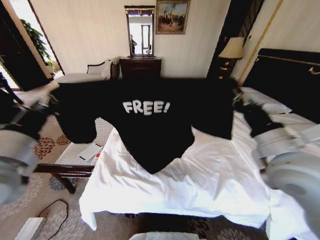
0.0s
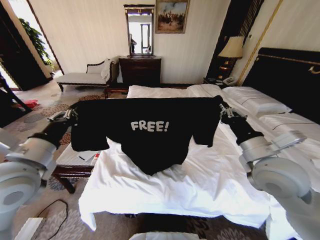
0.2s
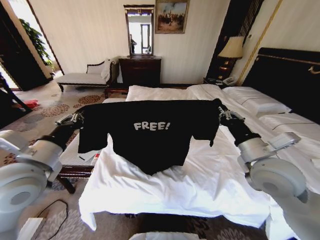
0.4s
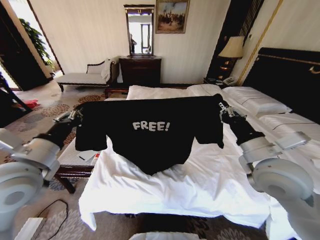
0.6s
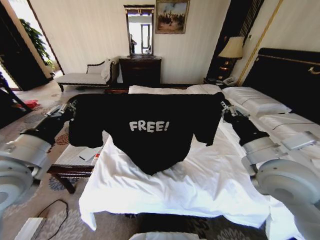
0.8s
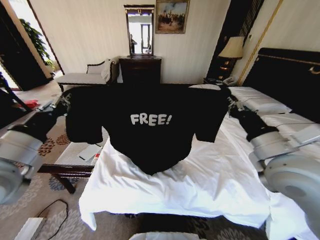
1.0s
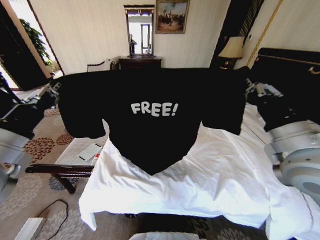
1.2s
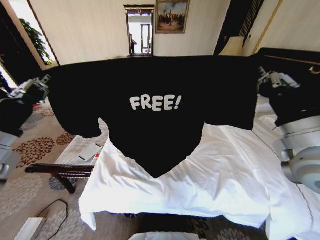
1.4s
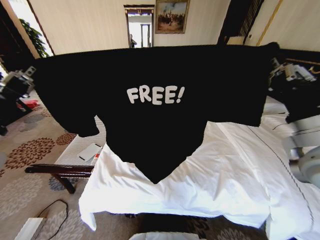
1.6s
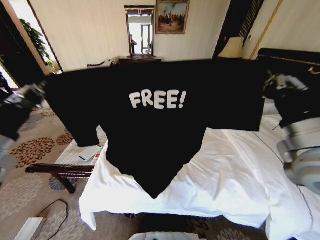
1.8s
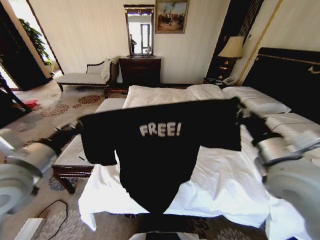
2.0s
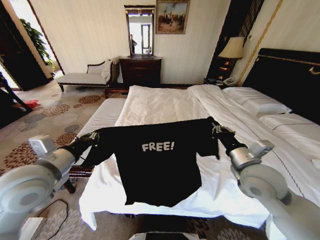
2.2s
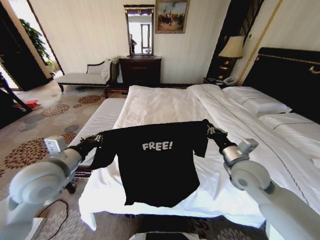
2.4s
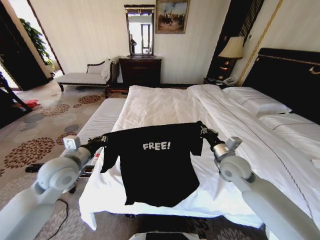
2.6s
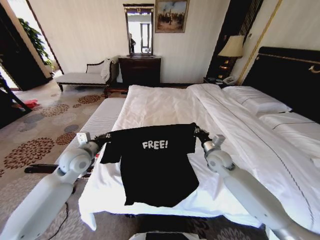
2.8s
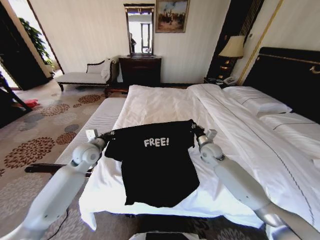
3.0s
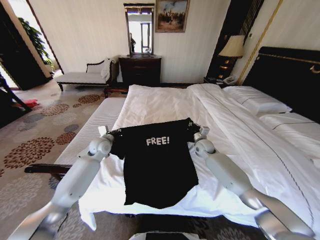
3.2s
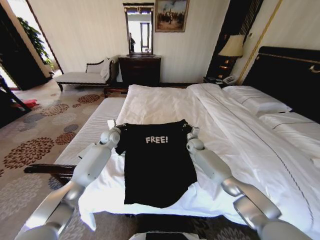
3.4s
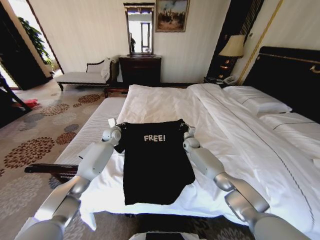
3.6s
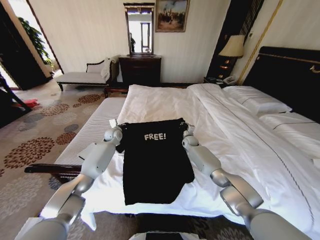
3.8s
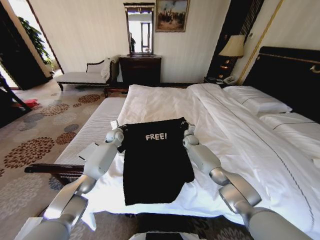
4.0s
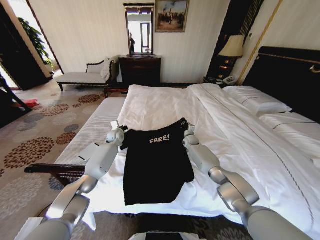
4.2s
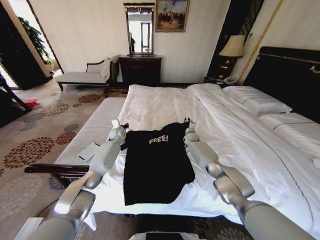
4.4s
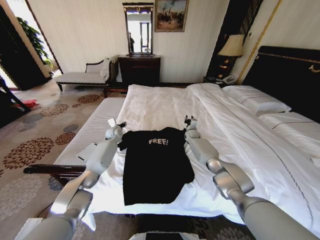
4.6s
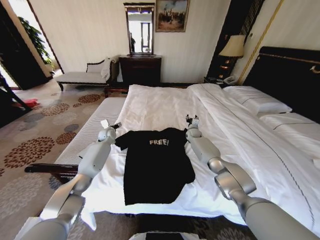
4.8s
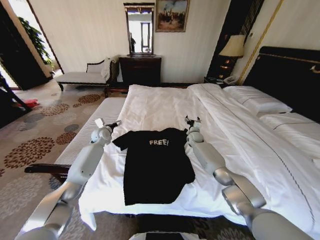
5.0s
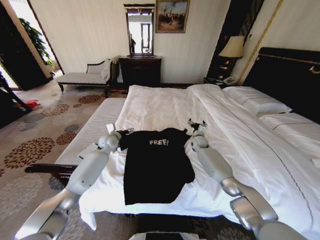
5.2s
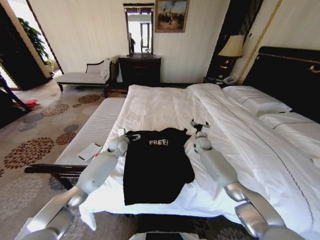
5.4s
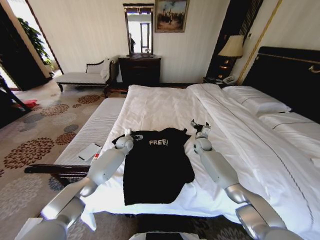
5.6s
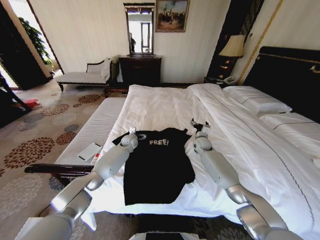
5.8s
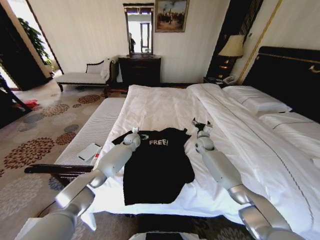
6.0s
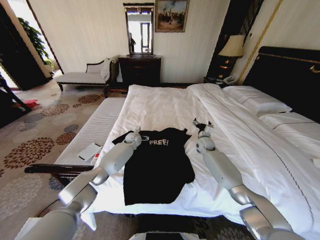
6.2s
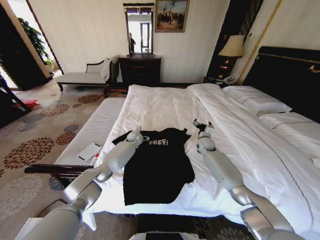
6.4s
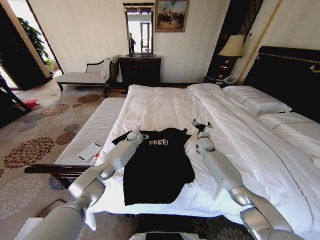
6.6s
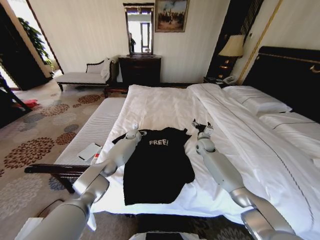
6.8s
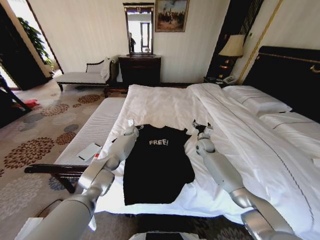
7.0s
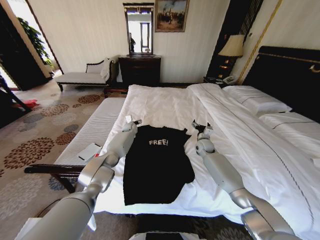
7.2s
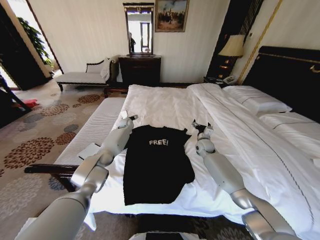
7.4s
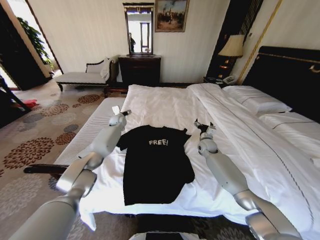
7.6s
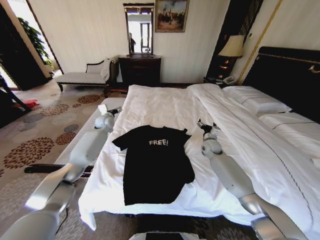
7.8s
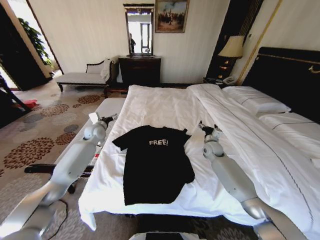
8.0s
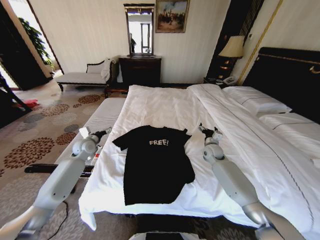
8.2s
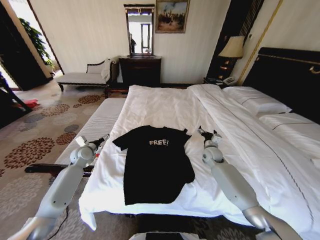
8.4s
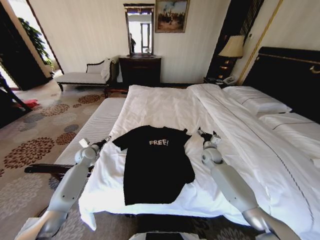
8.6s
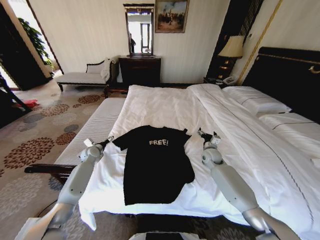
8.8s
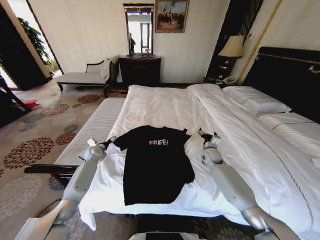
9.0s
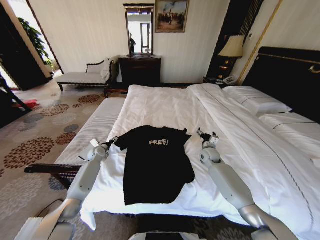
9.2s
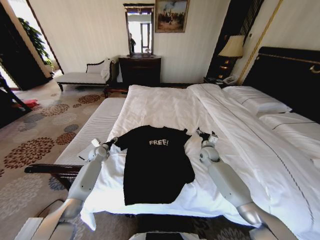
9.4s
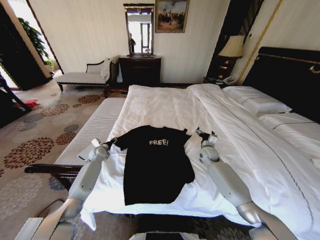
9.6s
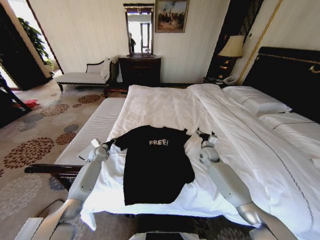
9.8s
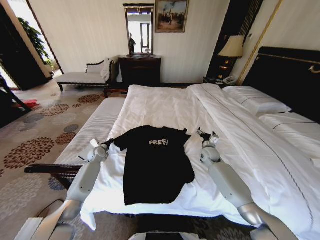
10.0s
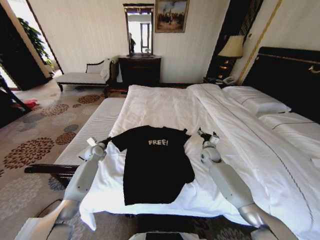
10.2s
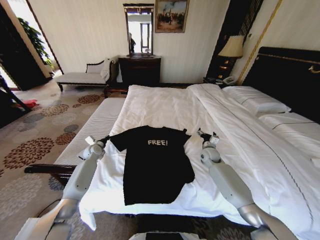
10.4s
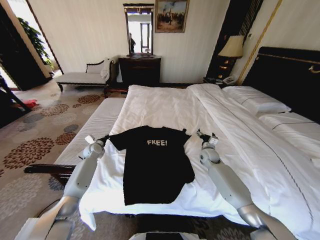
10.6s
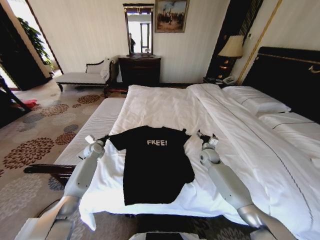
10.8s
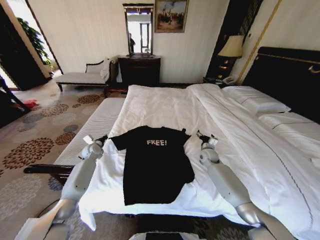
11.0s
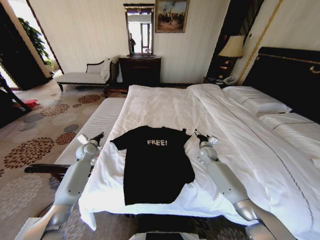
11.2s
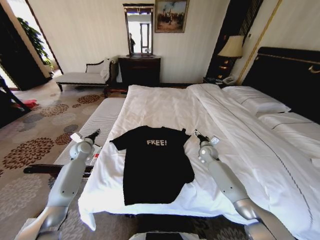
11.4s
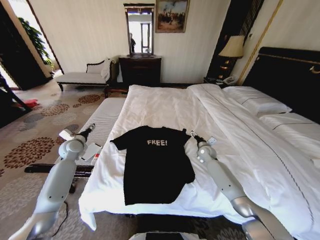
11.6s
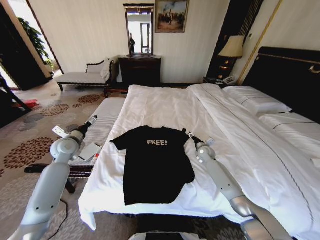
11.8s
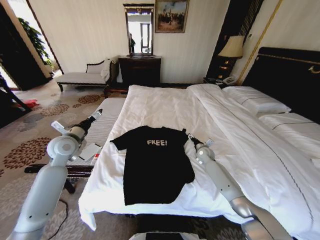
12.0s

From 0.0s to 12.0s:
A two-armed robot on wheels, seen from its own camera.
Task of the whole recording: Fold the clothes on the bed.
From 0.0s to 1.6s: The left gripper moves about 5 cm. The right gripper shifts roughly 5 cm upward.
From 1.6s to 3.0s: The right gripper shifts approximately 35 cm downward and forward. Meanwhile the left gripper goes roughly 30 cm forward and downward.
From 3.0s to 4.4s: Both grippers move forward and downward, some 20 cm. The left gripper opens up.
From 4.4s to 6.0s: The right gripper is displaced backward by roughly 10 cm, and opens; the left gripper is displaced to the right by about 10 cm, and opens up.
From 6.0s to 7.6s: The left gripper shifts some 15 cm forward, upward and to the left.
From 7.6s to 9.0s: The left gripper heads backward, to the left and downward, covering about 25 cm, while the right gripper shifts some 5 cm backward.
From 9.0s to 10.4s: The left gripper closes.
From 10.4s to 12.0s: The left gripper travels upward and backward by about 20 cm, and opens its fingers.

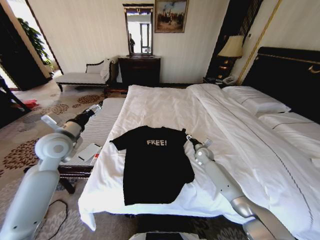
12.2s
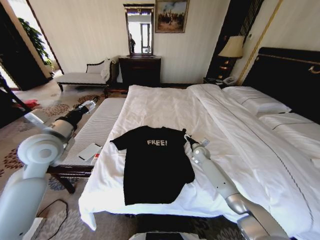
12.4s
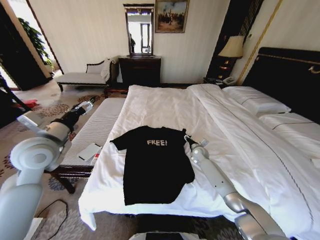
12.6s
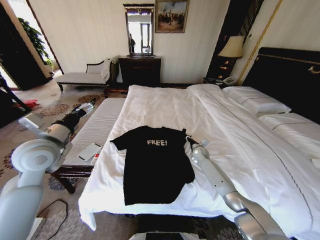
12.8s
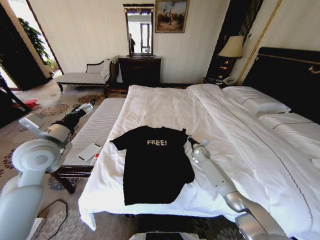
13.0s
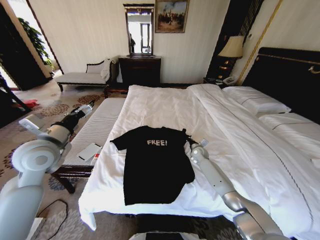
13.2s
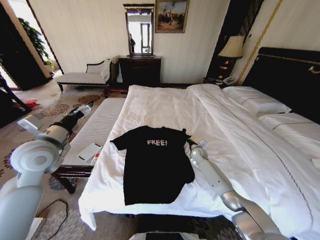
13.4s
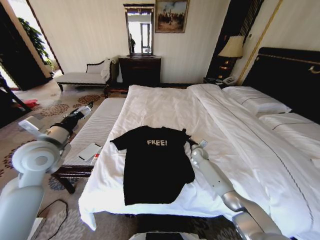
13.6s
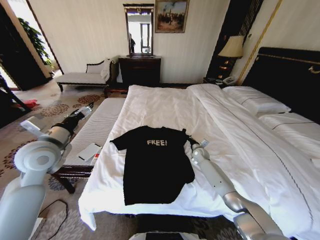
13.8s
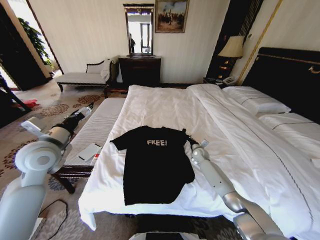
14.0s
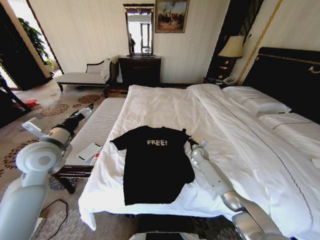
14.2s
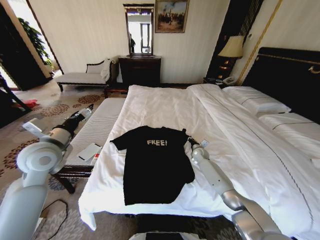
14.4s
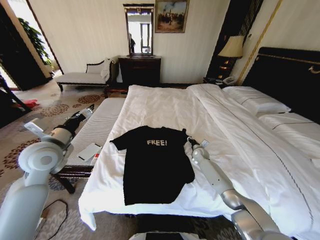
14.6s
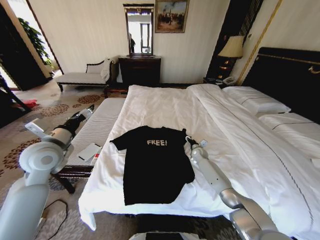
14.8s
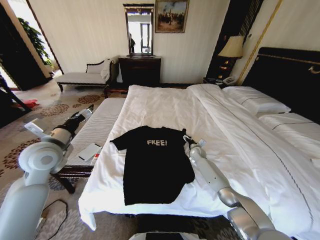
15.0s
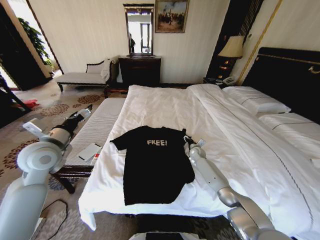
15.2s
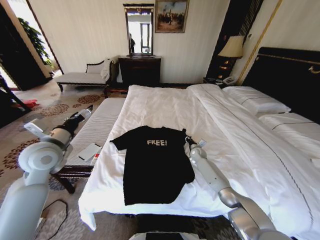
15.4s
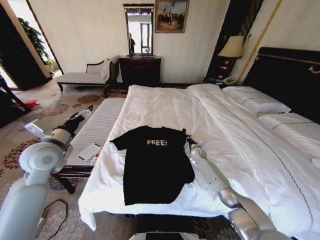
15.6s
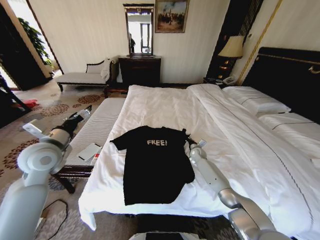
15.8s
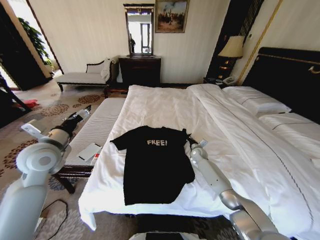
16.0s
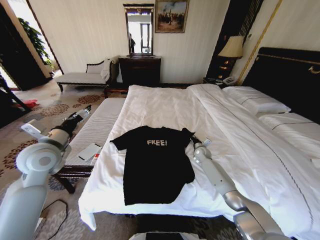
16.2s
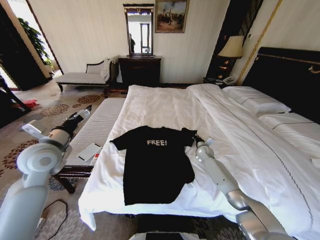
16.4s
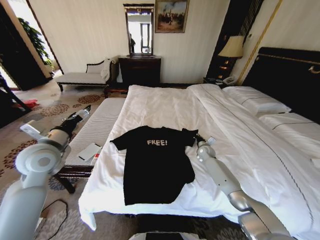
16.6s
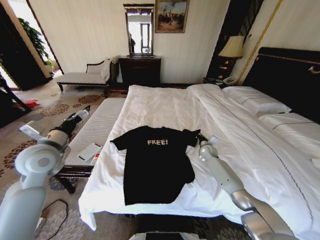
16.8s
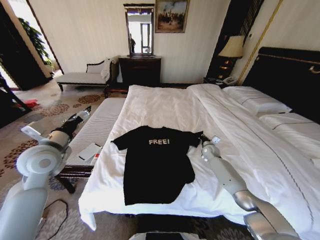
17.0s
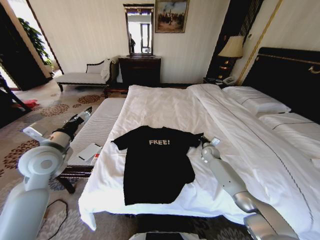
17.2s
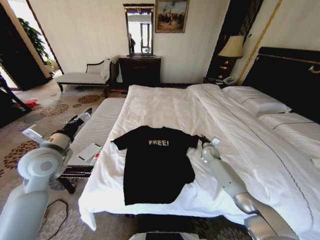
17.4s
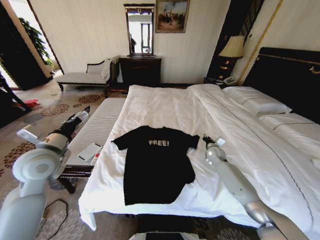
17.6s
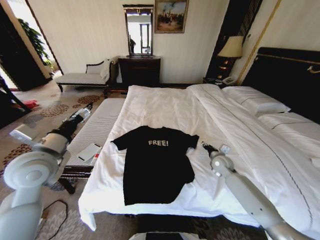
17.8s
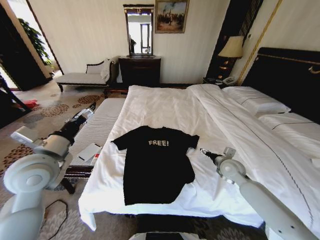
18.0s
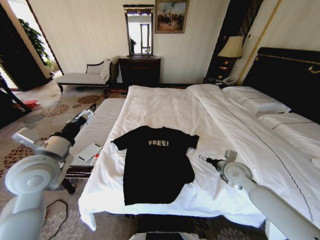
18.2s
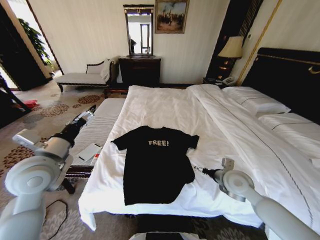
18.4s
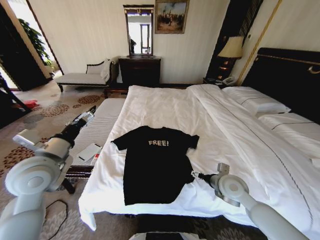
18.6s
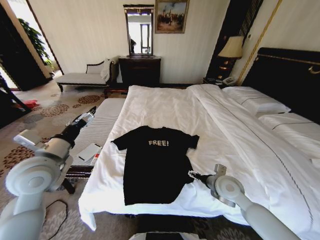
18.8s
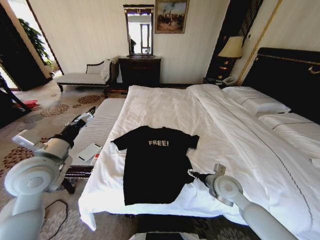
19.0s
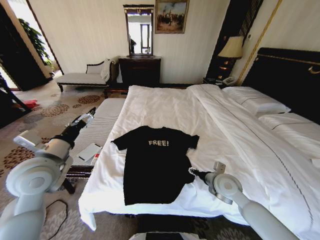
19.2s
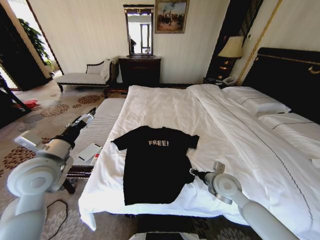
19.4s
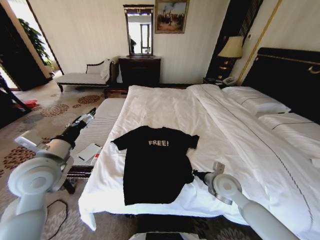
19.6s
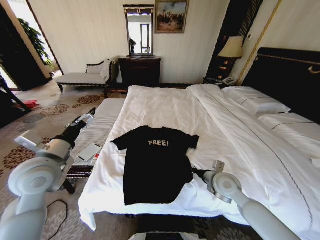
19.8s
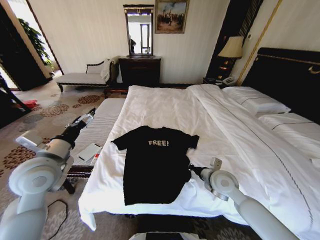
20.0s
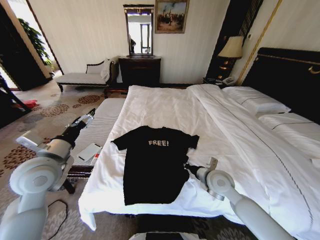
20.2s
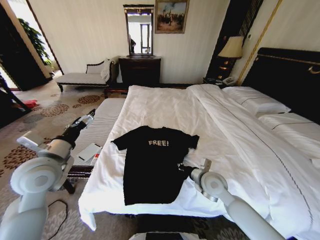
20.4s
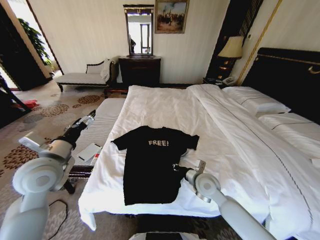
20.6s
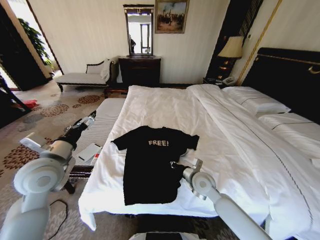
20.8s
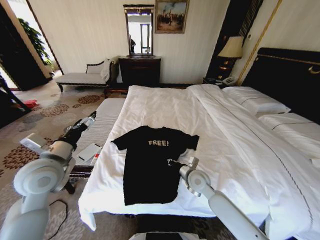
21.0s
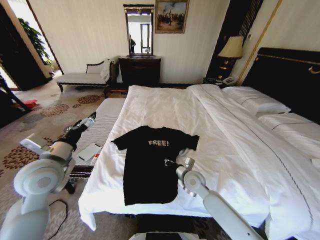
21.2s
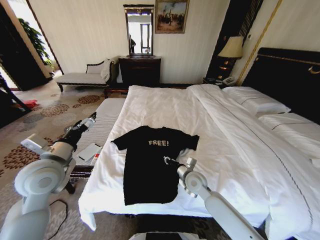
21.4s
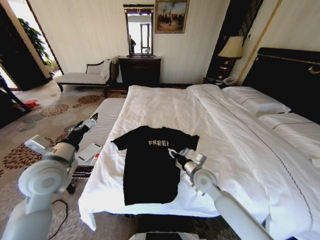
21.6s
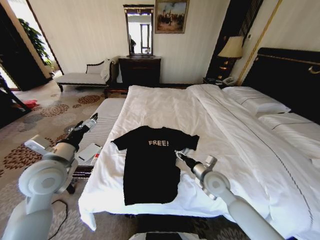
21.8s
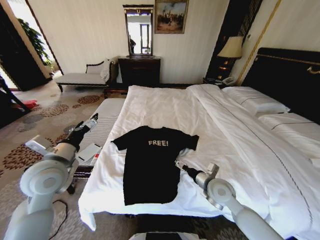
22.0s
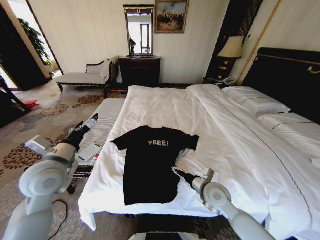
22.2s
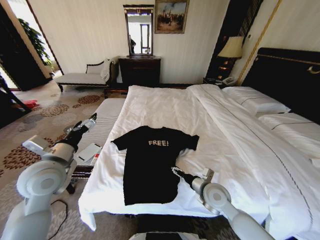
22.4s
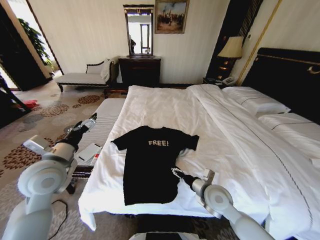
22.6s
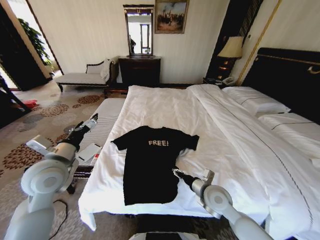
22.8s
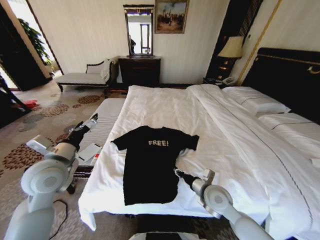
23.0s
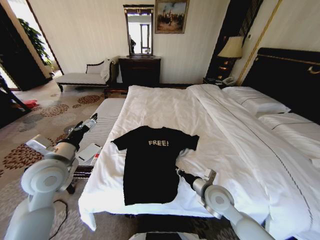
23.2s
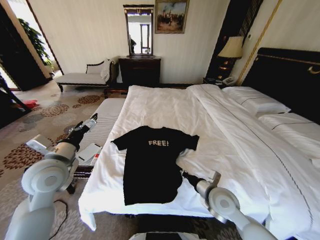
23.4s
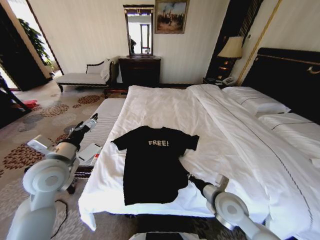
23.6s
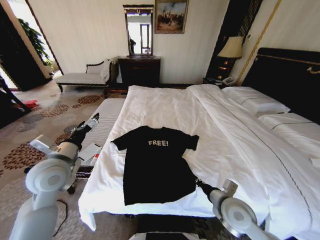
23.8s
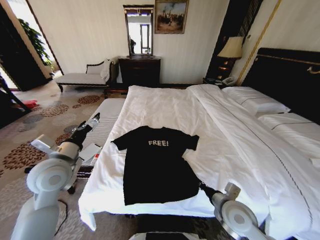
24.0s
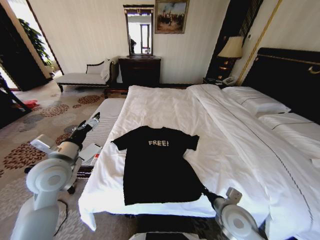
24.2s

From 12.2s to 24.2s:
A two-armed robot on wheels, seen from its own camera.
Task of the whole recording: Fold the clothes on the bed.
From 12.2s to 13.8s: The right gripper closes up. Meanwhile the left gripper goes some 5 cm backward.
From 13.8s to 15.2s: The right gripper opens its fingers.
From 15.2s to 16.6s: The right gripper ends up about 5 cm from where it was, and closes.
From 16.6s to 18.2s: The right gripper shifts approximately 20 cm backward and upward, and opens up, while the left gripper shifts approximately 5 cm backward.
From 18.2s to 19.8s: The right gripper is displaced to the left by some 5 cm, and closes.
From 19.8s to 21.2s: The right gripper shifts about 10 cm to the left and downward.
From 21.2s to 22.6s: The right gripper travels backward and to the right by roughly 10 cm, and opens up.
From 22.6s to 24.2s: The right gripper is displaced backward by some 5 cm, and closes up.
